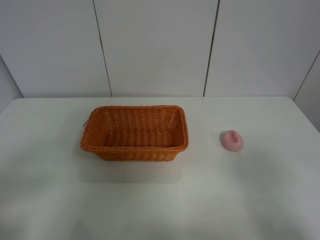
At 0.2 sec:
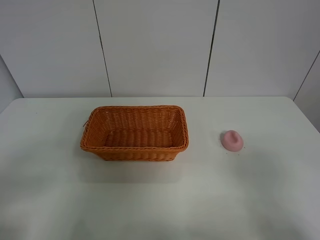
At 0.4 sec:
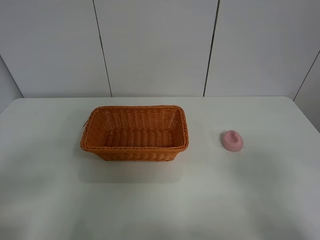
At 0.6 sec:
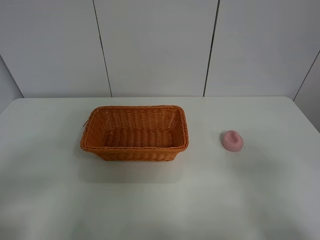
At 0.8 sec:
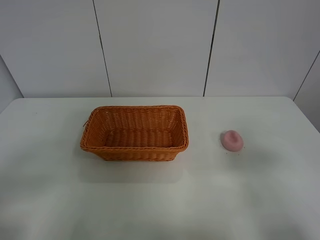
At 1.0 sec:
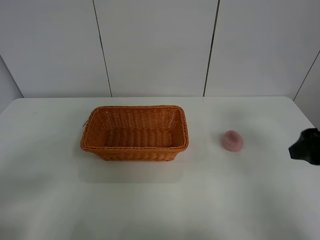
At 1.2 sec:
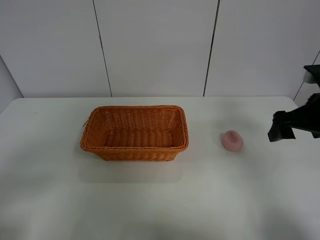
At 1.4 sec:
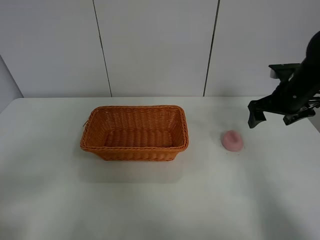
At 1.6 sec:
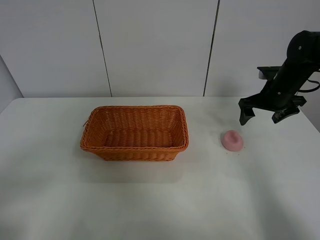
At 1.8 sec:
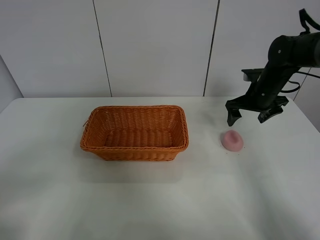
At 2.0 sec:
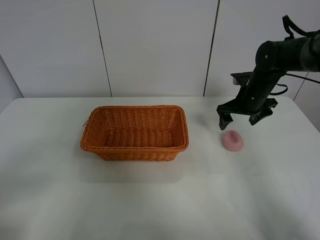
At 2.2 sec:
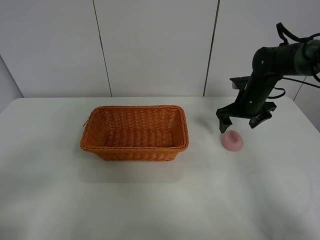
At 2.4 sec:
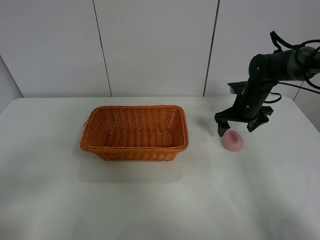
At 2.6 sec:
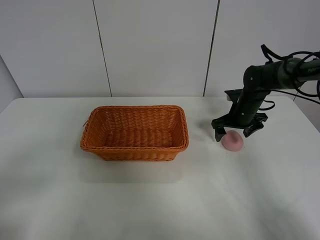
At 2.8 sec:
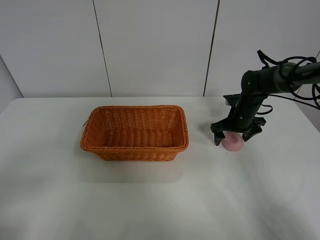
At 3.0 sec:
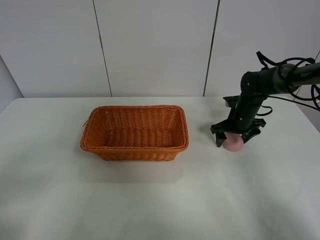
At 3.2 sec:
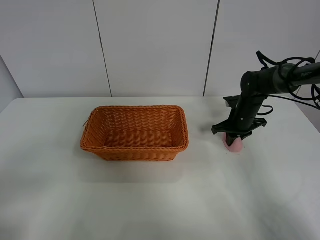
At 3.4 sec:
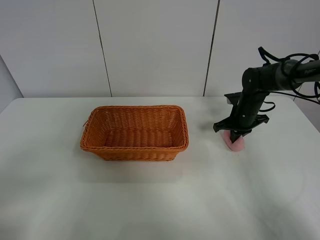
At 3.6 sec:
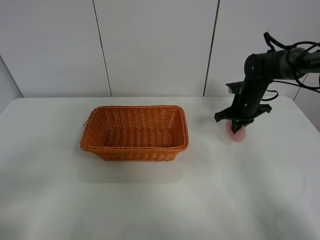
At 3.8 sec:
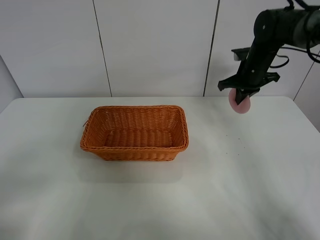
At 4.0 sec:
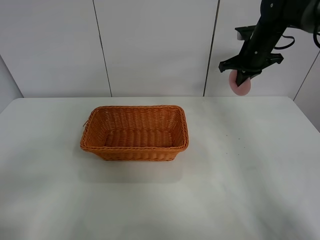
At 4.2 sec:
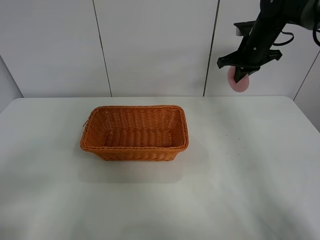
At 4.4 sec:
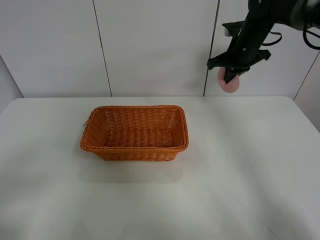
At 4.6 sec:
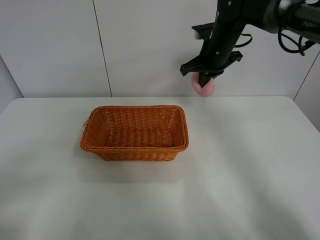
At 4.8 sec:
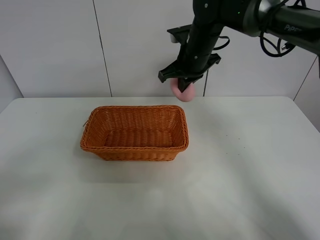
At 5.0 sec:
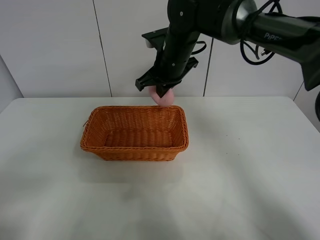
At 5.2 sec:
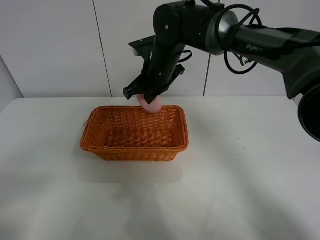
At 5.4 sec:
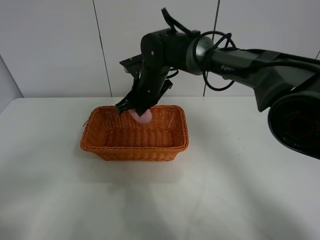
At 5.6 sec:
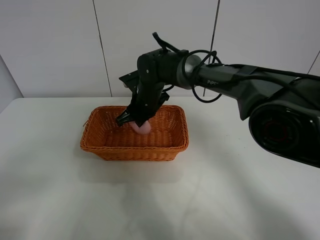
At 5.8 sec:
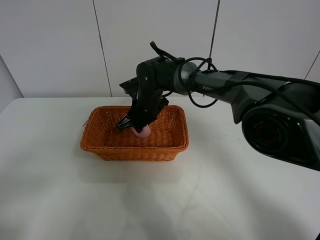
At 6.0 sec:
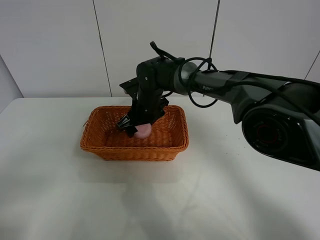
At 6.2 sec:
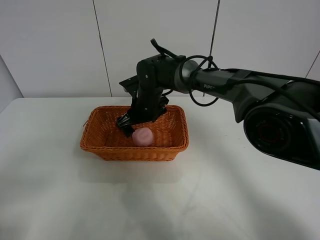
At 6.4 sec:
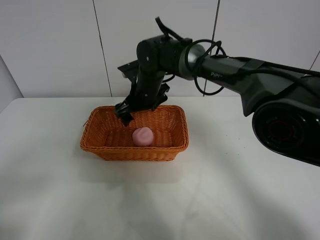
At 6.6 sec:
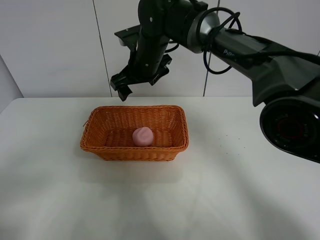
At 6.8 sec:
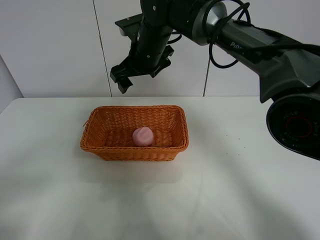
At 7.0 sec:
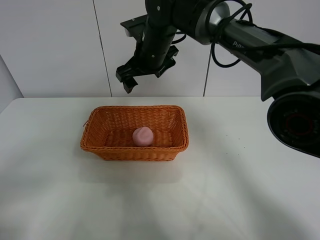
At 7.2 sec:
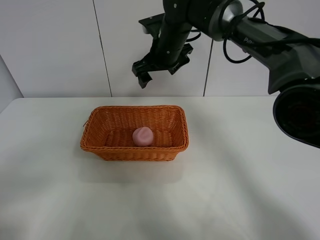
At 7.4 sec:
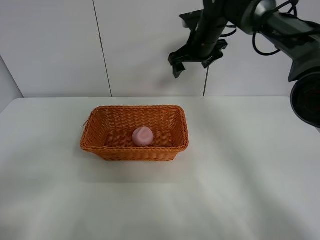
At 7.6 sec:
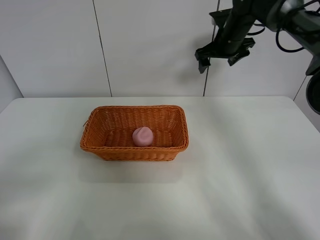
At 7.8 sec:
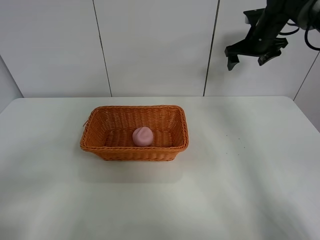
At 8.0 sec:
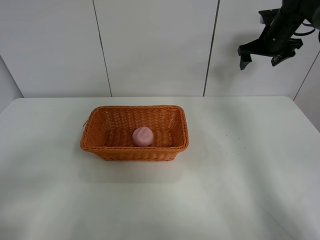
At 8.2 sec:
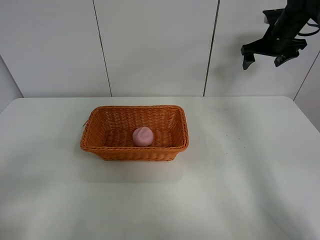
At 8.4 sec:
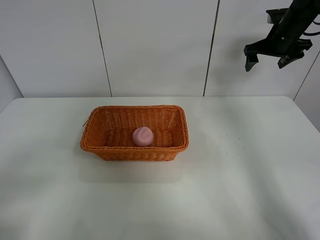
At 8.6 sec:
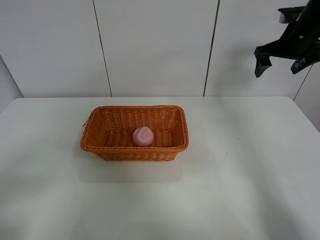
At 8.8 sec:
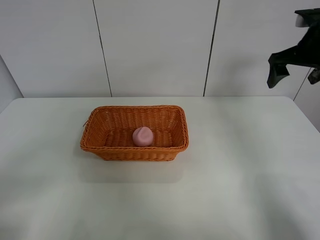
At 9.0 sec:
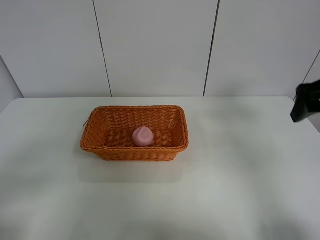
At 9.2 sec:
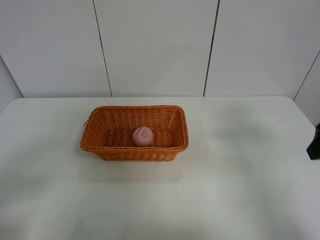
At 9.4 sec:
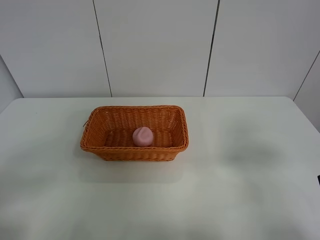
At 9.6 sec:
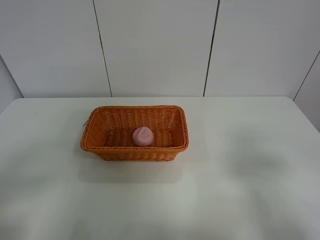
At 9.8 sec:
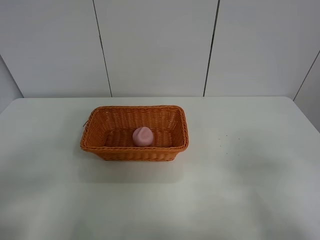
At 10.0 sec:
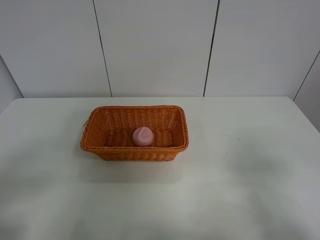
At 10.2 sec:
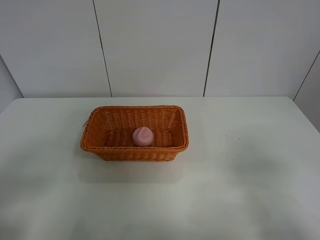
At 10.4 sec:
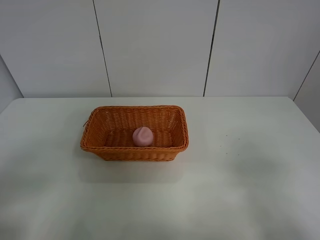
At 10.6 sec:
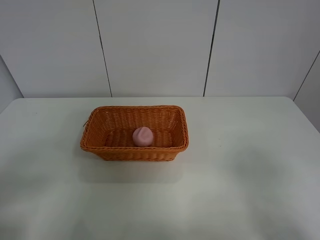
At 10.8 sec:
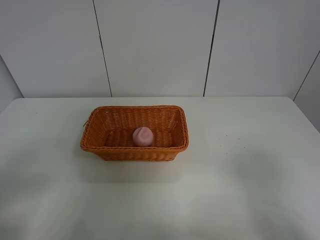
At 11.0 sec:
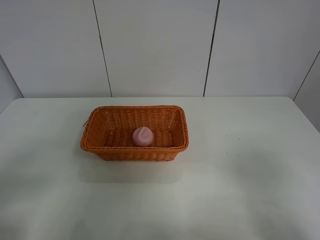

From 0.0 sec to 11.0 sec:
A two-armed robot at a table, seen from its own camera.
Step, from 0.0 sec to 3.2 sec: Grasp the peach with right gripper.
Step, from 3.4 sec to 6.8 sec: Place the peach in the basket with right gripper.
From 0.0 sec to 1.6 sec: The right gripper is displaced forward by about 40 cm.
From 1.6 sec to 3.2 sec: The right gripper moves downward, about 10 cm, and closes.
From 3.2 sec to 4.8 sec: The right gripper shifts roughly 25 cm upward and to the left.
From 4.8 sec to 6.2 sec: The right gripper goes some 15 cm downward and to the left, and opens its fingers.
From 6.2 sec to 7.8 sec: The right gripper heads to the right and upward, covering some 35 cm.
From 7.8 sec to 9.4 sec: The right gripper is displaced backward by approximately 40 cm.
From 9.4 sec to 11.0 sec: The right gripper heads backward, covering roughly 10 cm.
